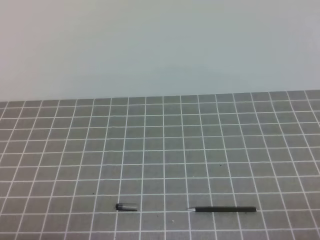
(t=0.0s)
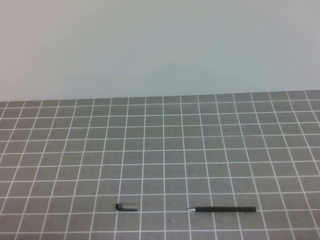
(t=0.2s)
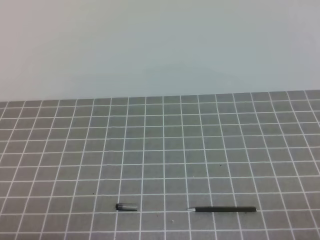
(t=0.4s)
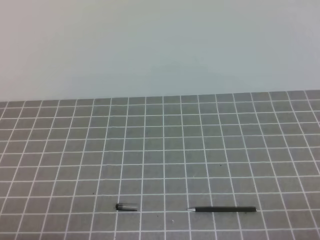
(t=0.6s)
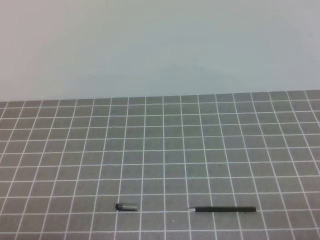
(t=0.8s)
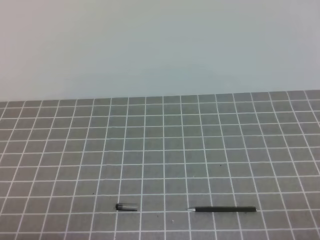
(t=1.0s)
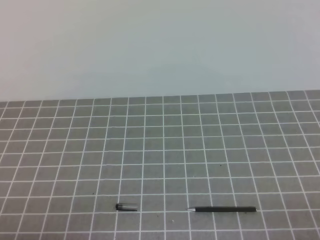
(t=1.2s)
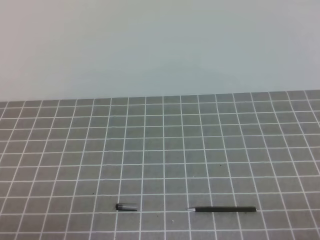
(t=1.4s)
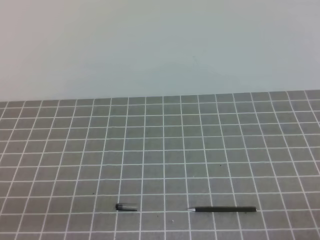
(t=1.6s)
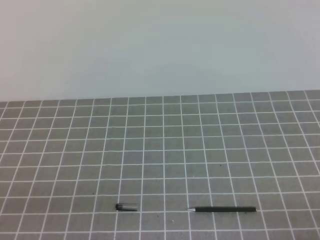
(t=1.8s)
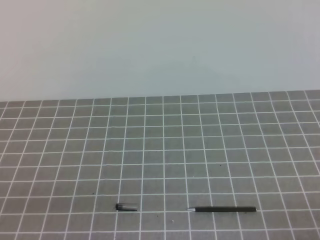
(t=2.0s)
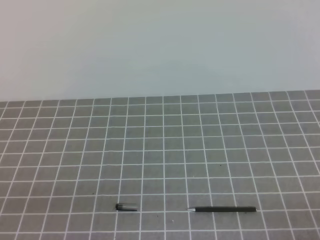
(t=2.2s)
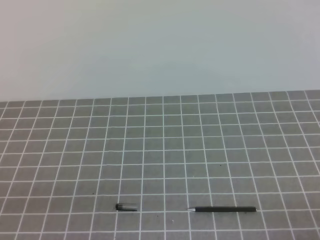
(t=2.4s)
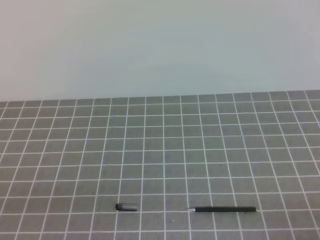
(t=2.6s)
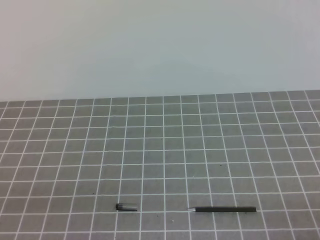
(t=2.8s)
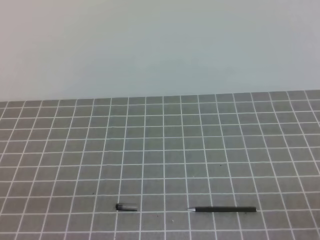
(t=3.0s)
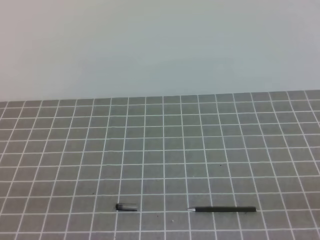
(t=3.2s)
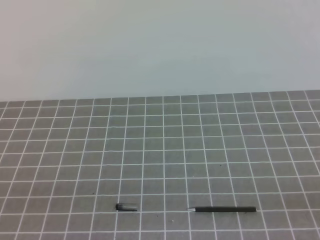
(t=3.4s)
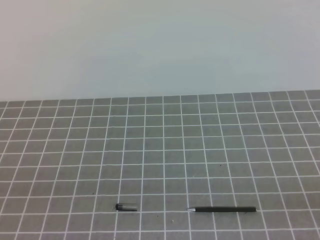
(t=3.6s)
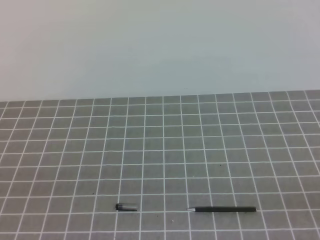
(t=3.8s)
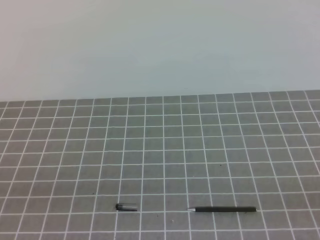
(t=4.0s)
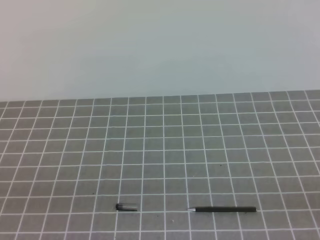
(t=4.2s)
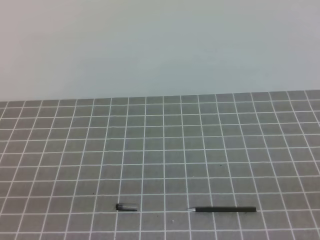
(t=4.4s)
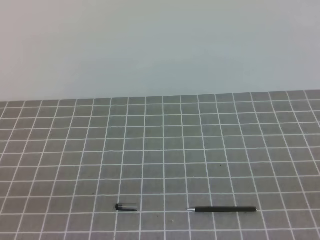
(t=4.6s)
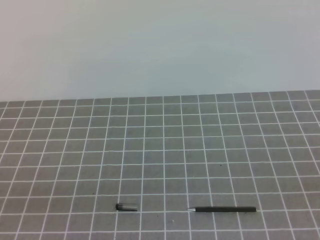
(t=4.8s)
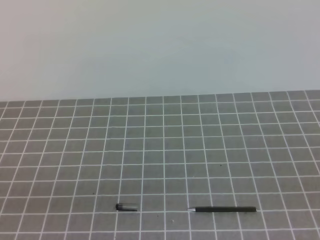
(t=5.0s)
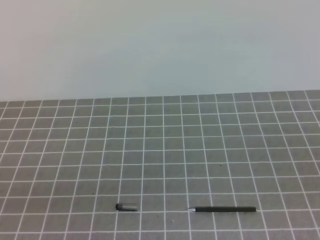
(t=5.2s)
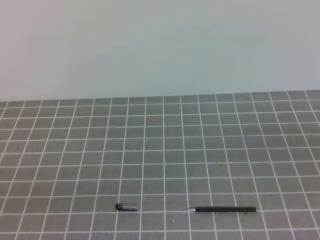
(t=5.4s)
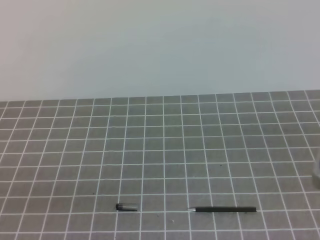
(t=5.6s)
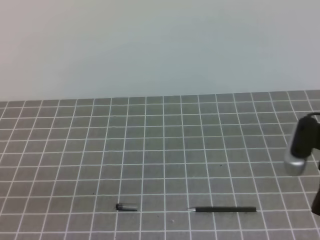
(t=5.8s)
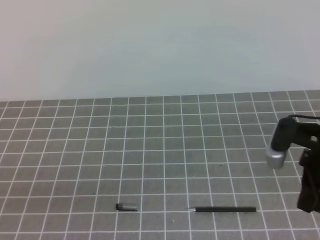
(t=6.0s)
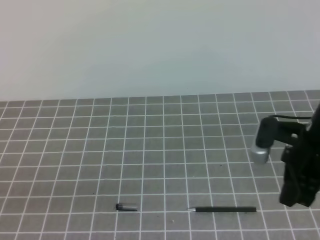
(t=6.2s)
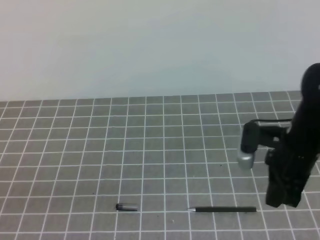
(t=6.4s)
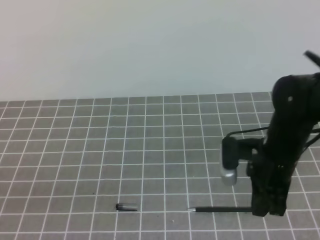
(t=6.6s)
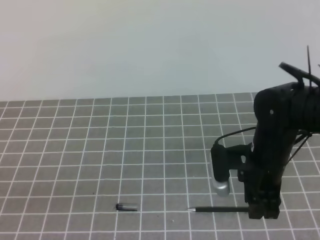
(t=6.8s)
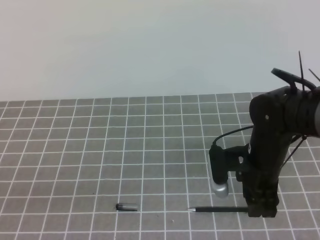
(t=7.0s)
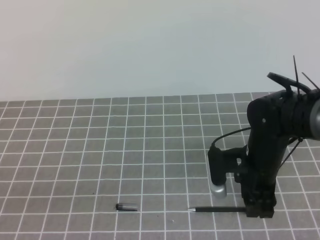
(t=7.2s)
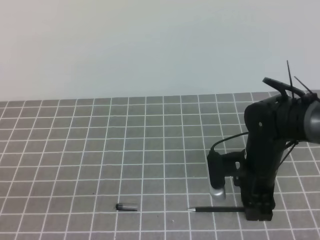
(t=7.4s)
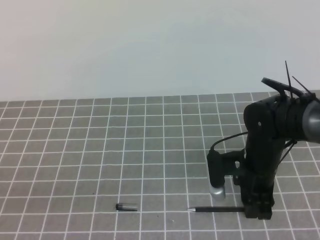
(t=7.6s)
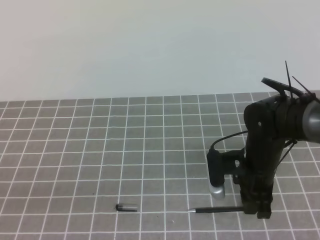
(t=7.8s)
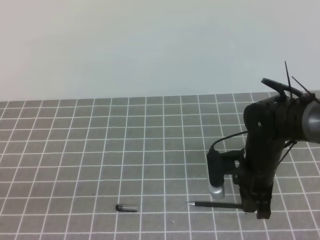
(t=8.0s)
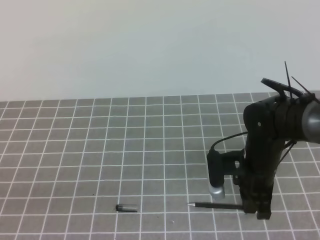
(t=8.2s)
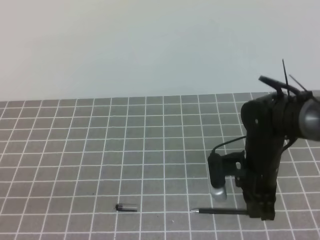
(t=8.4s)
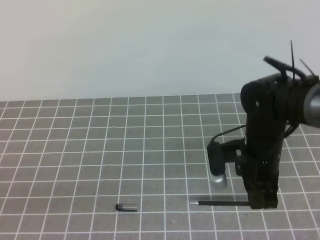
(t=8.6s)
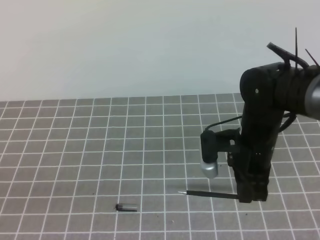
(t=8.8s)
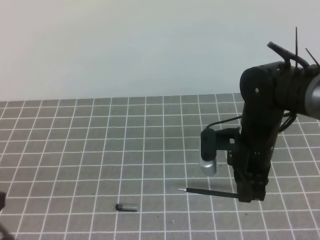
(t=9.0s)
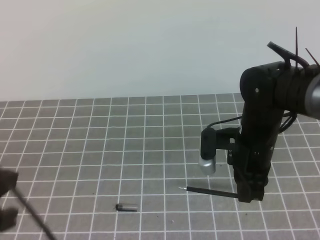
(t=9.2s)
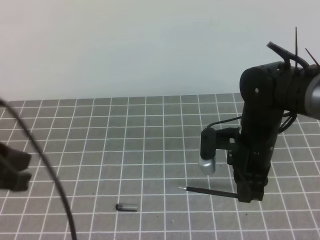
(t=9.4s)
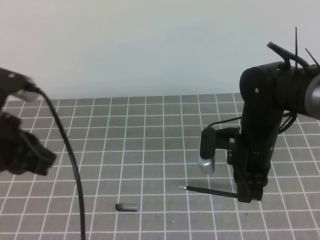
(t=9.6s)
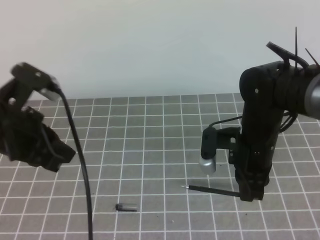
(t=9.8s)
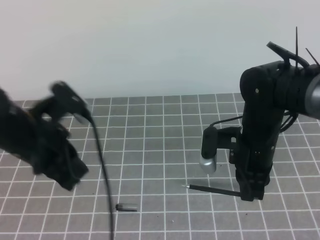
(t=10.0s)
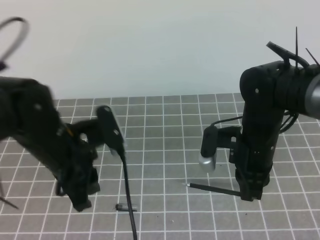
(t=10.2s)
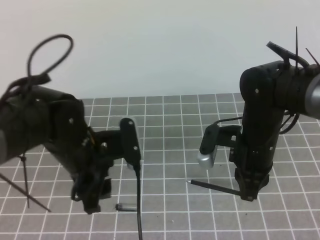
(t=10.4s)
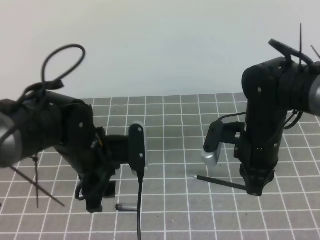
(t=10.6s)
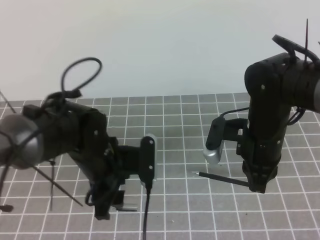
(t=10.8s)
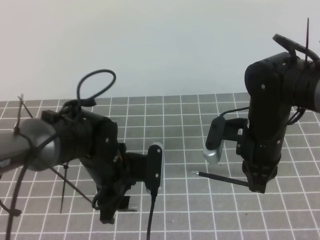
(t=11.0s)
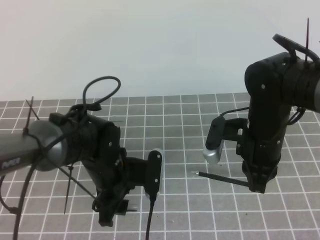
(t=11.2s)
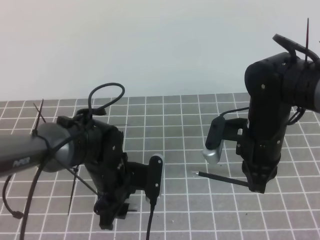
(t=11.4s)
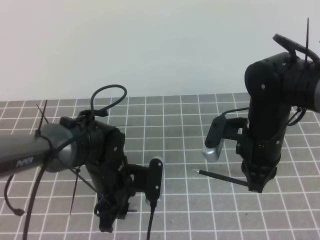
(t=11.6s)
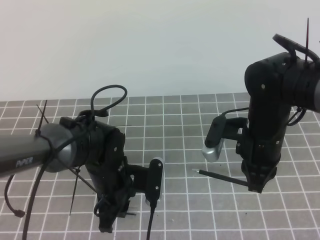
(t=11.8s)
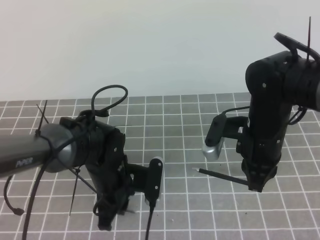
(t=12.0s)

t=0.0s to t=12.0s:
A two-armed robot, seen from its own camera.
Task of the whole recording: on the grey tablecloth, hold the pen cap in one hand and the pen in the other, then cover the pen cap.
t=4.4s to t=6.0s: The right gripper heads forward and to the left, covering about 25 cm.
t=6.0s to t=7.6s: The right gripper goes some 15 cm downward, to the left and forward, and opens.
t=7.6s to t=9.0s: The left gripper moves about 5 cm, while the right gripper heads upward, covering some 5 cm, and closes.
t=9.0s to t=10.4s: The left gripper is displaced forward and to the right by some 20 cm, and opens.
t=10.4s to t=12.0s: The left gripper shifts some 10 cm downward, and closes.

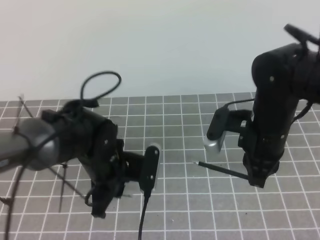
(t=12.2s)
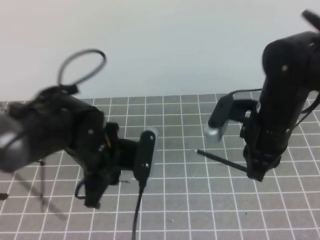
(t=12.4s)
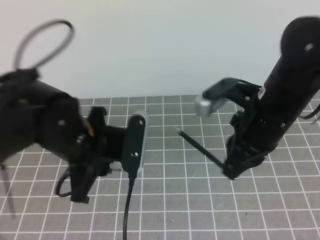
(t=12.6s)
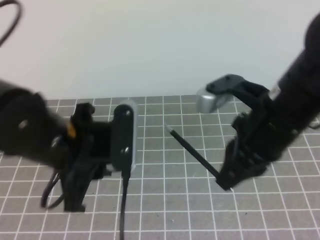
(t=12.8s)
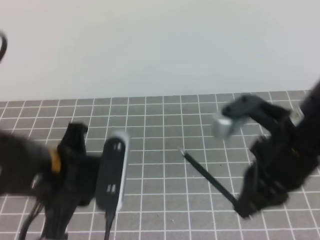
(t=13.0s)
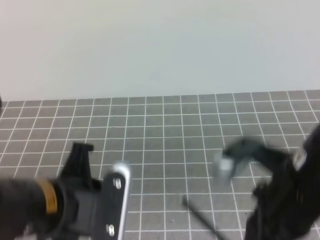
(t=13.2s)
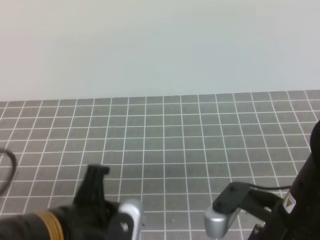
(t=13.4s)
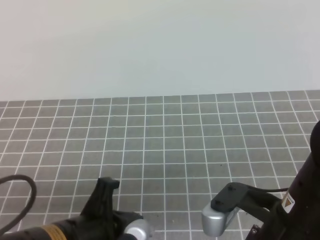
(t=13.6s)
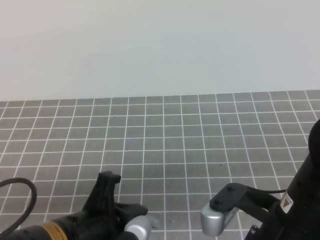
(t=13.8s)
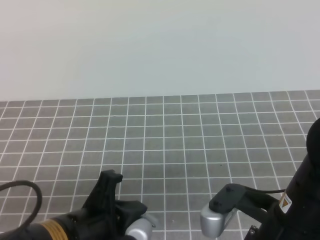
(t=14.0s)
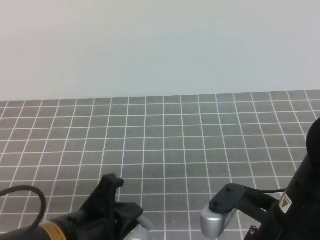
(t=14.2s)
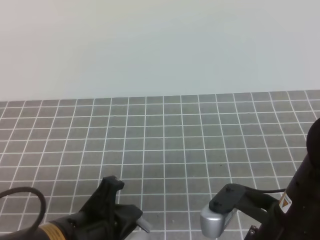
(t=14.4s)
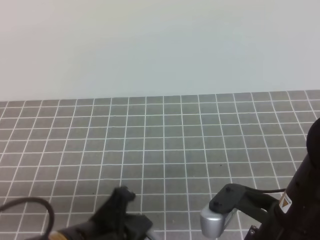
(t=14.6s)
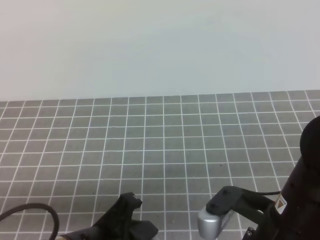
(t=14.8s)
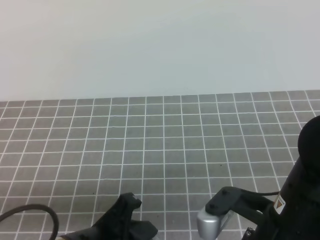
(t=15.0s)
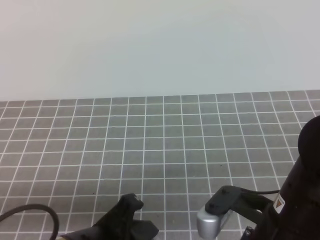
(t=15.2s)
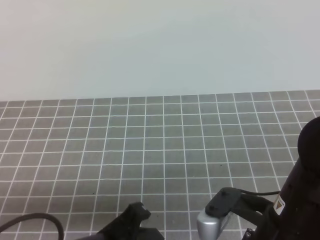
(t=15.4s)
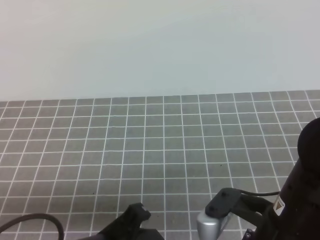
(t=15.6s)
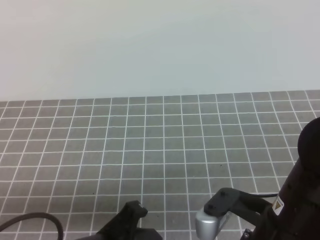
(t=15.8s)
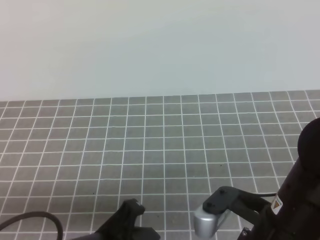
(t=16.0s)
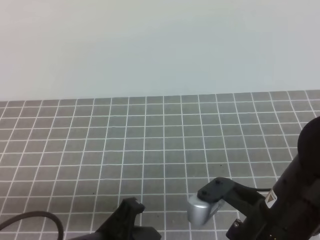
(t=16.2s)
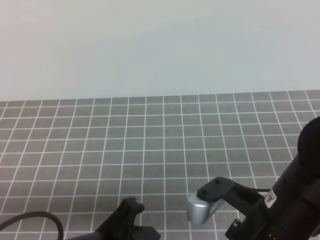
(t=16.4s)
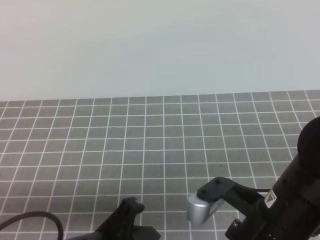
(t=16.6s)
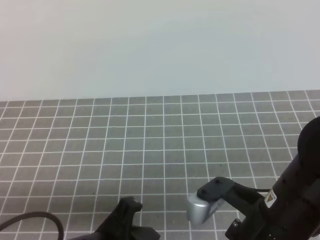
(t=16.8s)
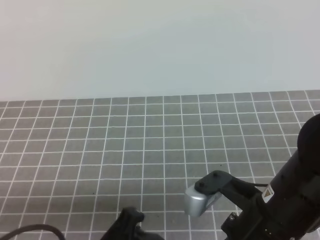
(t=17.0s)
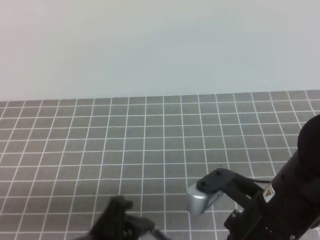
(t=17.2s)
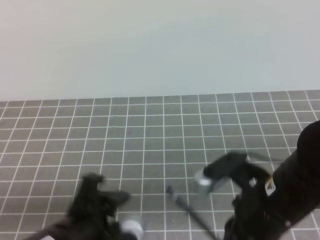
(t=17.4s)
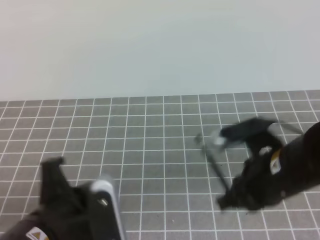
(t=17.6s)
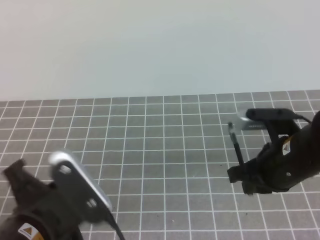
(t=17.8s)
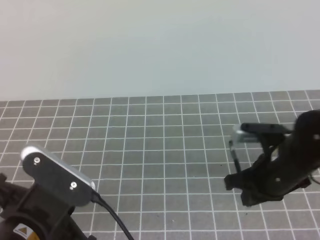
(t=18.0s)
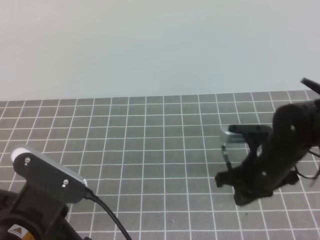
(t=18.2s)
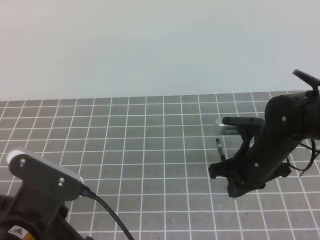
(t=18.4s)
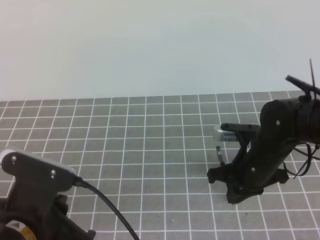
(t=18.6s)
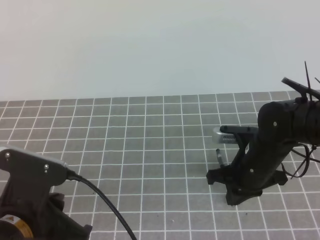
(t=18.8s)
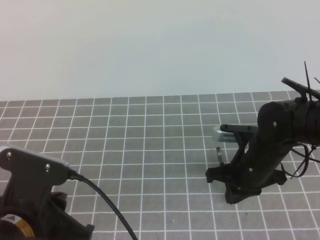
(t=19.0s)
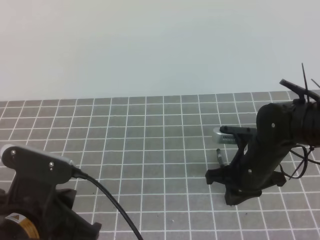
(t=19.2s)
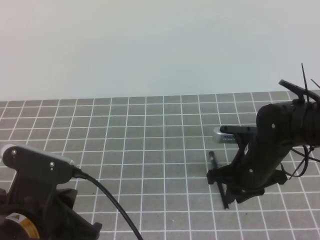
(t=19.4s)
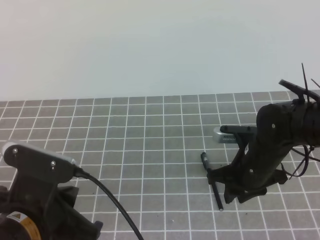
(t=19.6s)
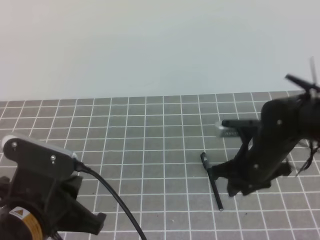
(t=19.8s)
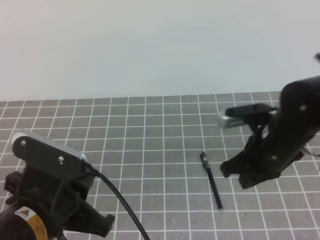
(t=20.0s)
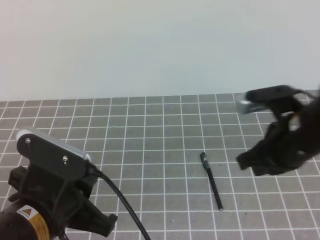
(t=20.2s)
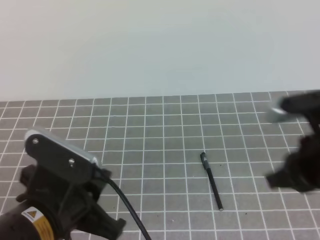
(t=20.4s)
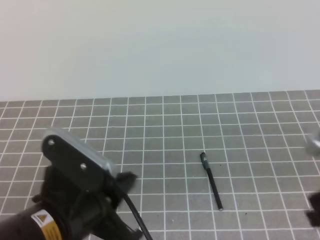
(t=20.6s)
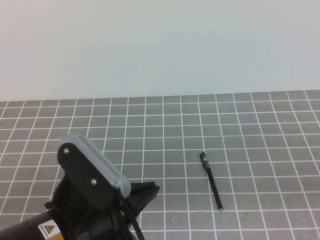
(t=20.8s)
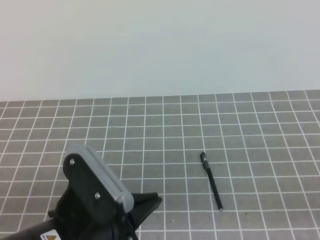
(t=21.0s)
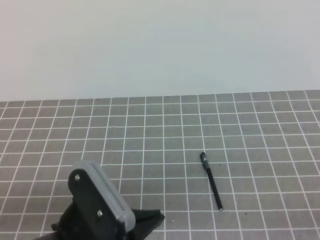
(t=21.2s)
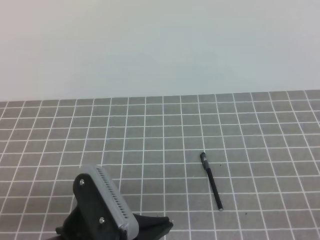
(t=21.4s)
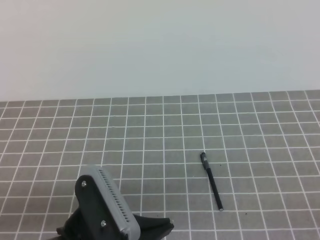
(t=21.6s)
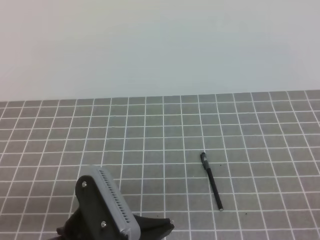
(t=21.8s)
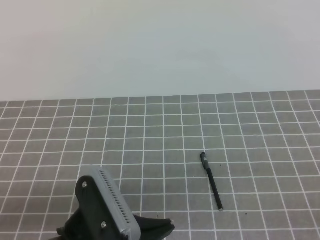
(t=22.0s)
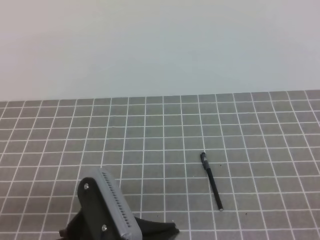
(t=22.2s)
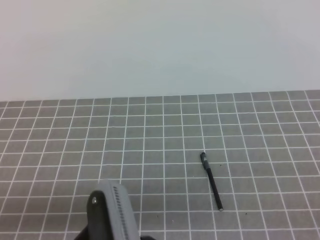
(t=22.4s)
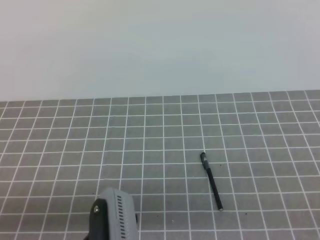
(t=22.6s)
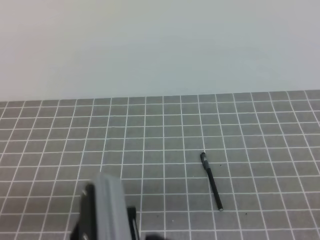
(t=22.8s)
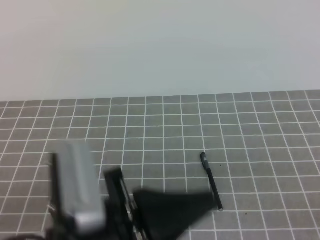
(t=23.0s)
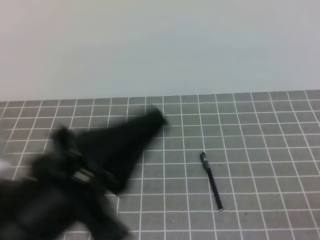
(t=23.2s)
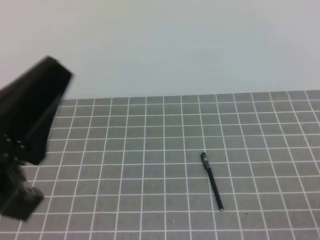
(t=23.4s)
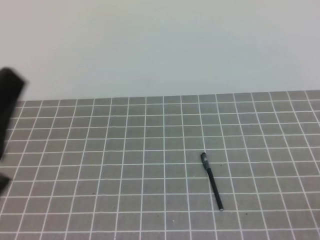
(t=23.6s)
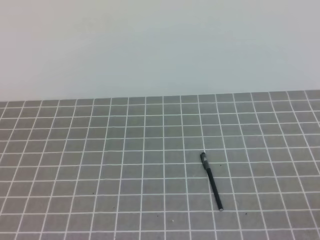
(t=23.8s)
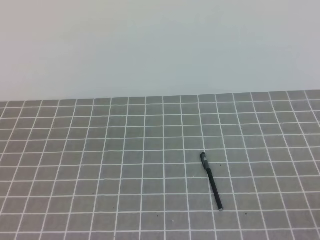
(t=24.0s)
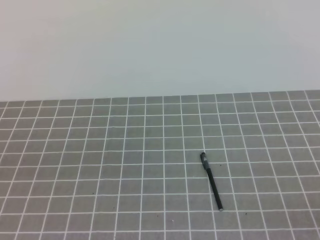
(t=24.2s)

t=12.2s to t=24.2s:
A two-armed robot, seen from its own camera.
Task of the whole recording: on the grey tablecloth, hold the pen cap in one hand and the pen in the other, then cover the pen cap.
t=12.2s to t=13.8s: Both grippers move backward, some 15 cm.
t=13.8s to t=15.2s: The grippers move only a little.
t=15.2s to t=16.6s: The grippers stay close to where they were, moving slightly.
t=16.6s to t=18.2s: The left gripper is displaced to the left by approximately 5 cm, and opens, then closes again. The right gripper shifts approximately 15 cm forward and downward.
t=18.2s to t=19.8s: The right gripper opens.
t=19.8s to t=21.2s: The left gripper changes place by roughly 5 cm. The right gripper goes approximately 30 cm backward and to the right, and closes up.
t=22.6s to t=24.2s: The left gripper shifts approximately 15 cm to the left.
